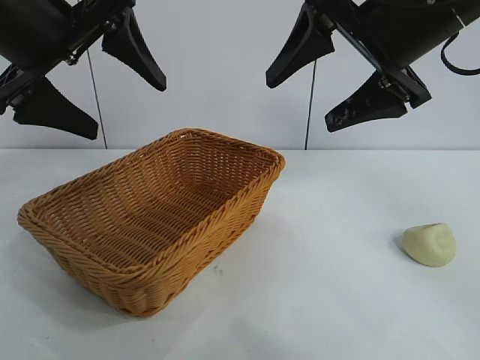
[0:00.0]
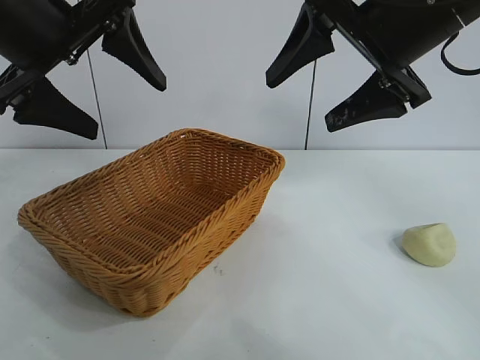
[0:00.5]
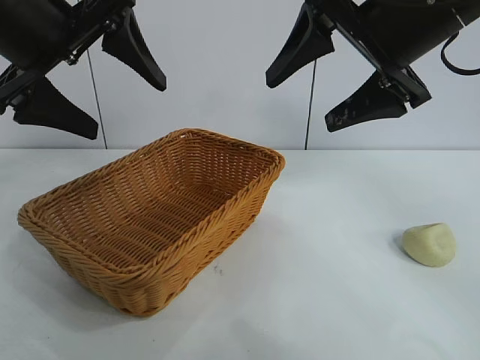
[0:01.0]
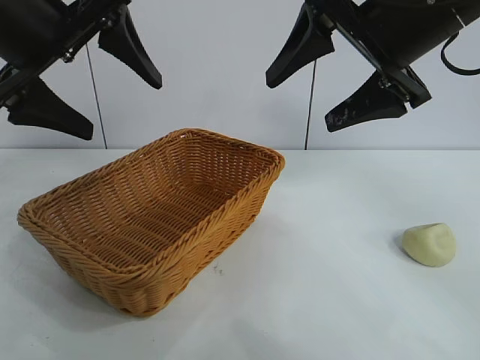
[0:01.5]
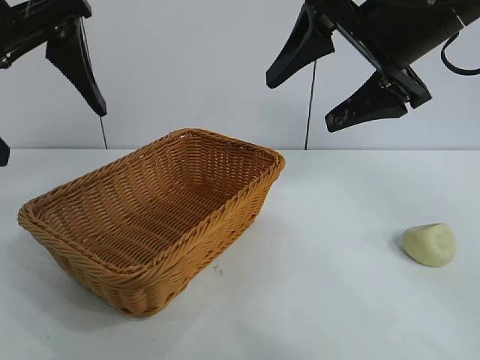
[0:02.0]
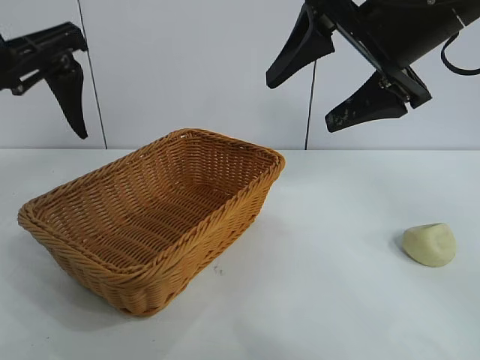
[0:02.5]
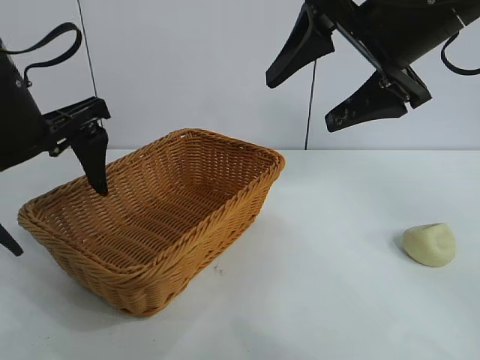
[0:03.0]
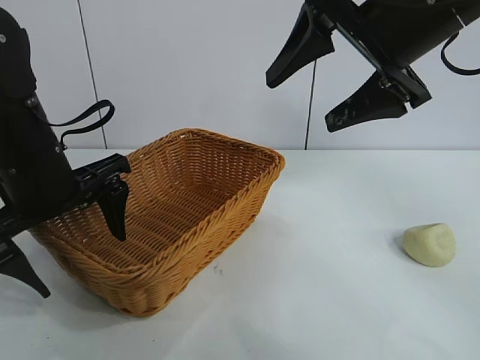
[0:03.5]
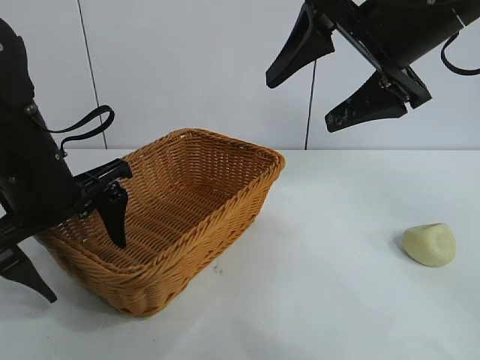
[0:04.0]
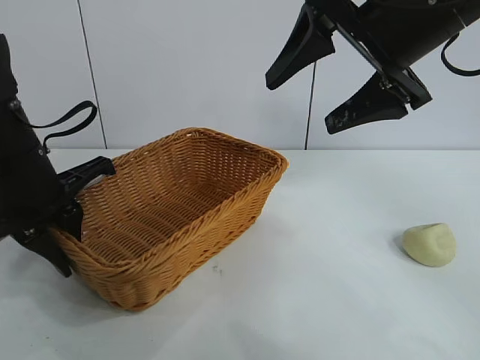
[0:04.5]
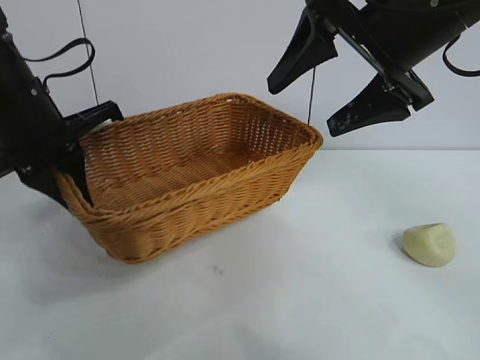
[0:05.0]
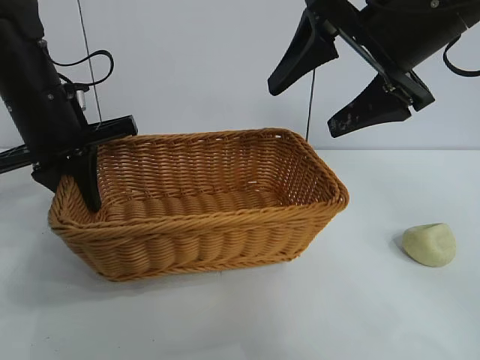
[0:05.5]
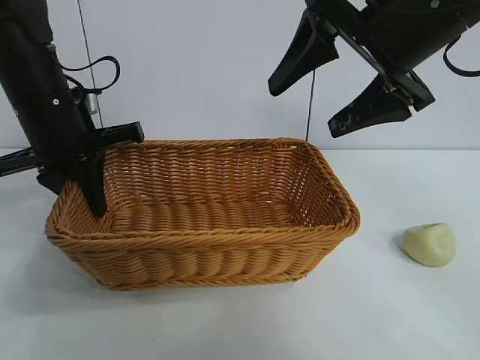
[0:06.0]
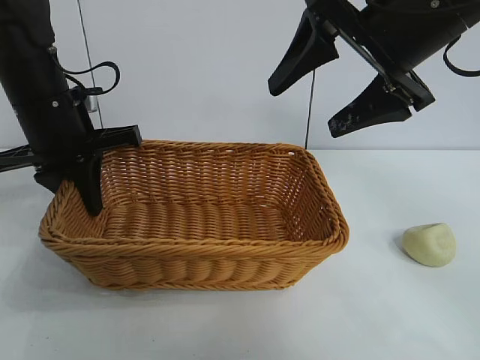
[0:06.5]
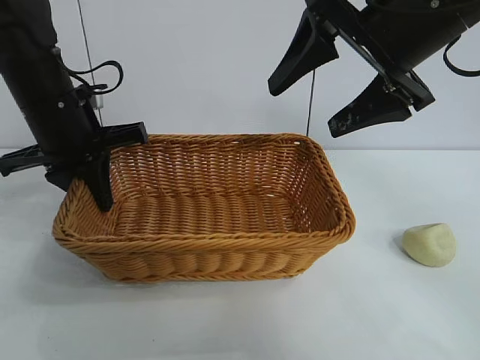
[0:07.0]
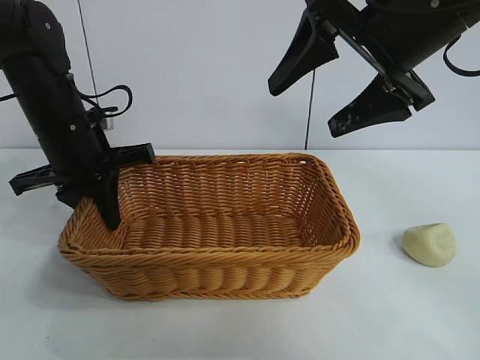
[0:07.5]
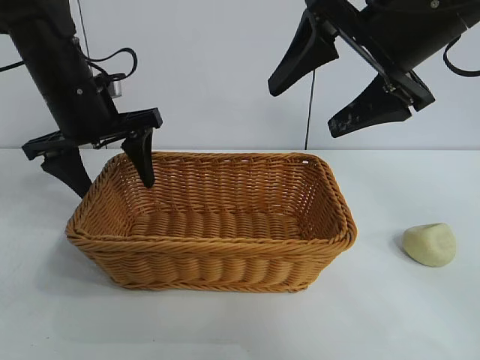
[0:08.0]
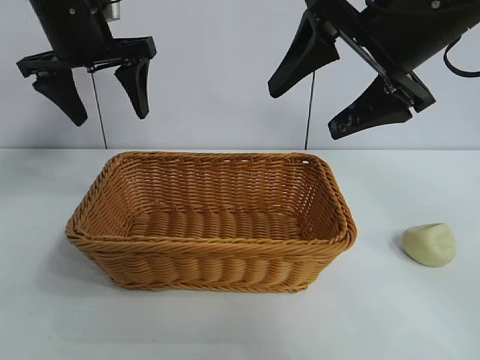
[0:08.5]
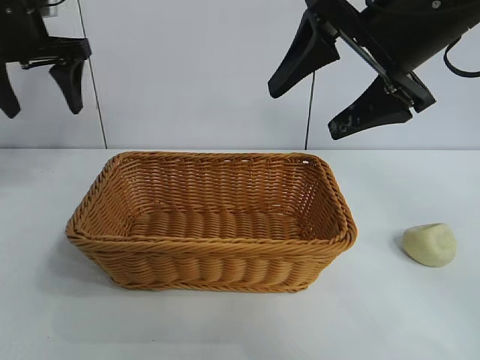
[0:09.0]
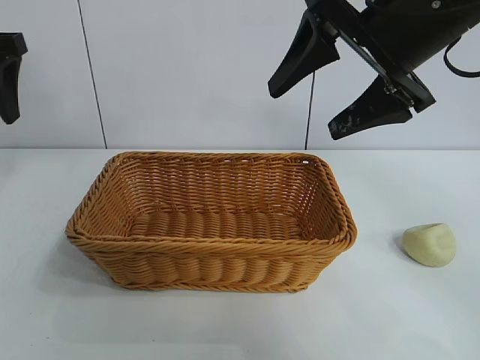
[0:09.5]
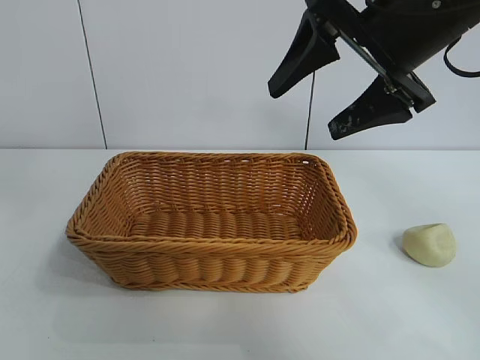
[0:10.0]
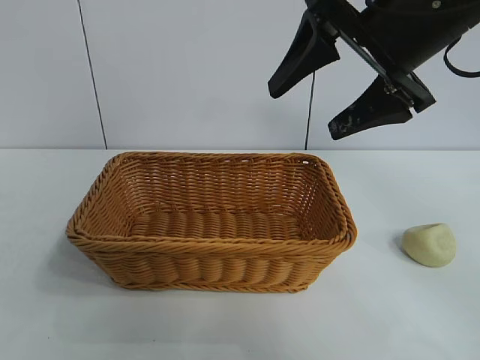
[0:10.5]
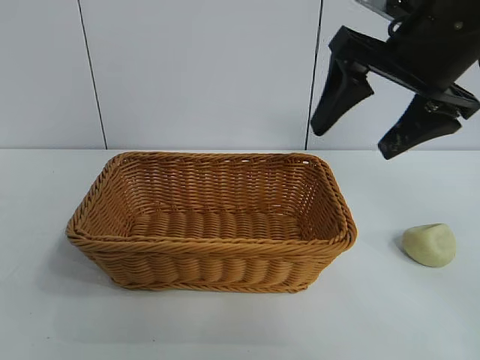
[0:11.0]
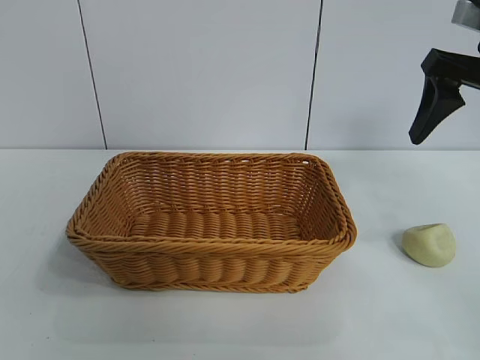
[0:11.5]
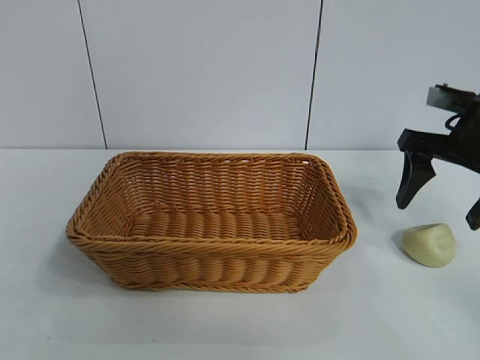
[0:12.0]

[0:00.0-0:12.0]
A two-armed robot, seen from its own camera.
Task of the whole recording: pick up the egg yolk pastry and put it into the basket.
Step, 0:01.5 to 0:04.0: Grasp the basket with left gripper.
Step, 0:04.5 to 0:07.5: Place the basket in the center of view with left gripper.

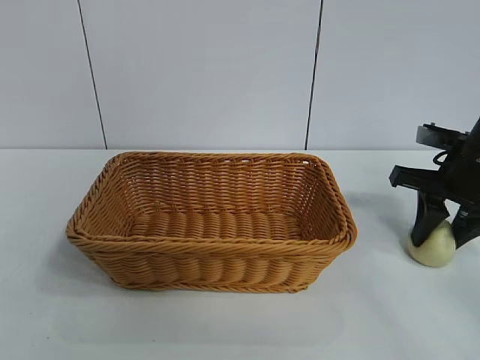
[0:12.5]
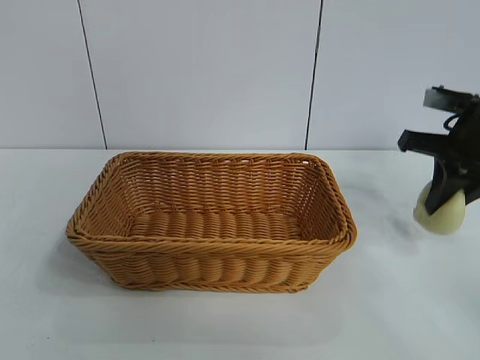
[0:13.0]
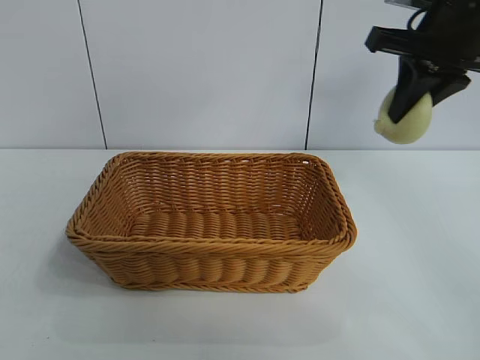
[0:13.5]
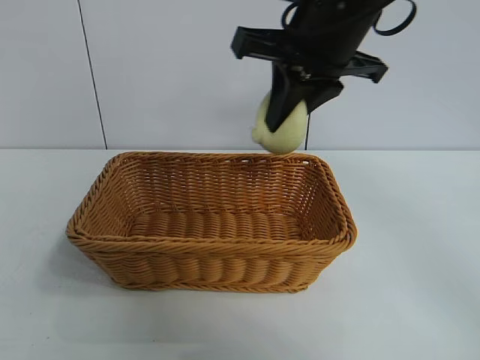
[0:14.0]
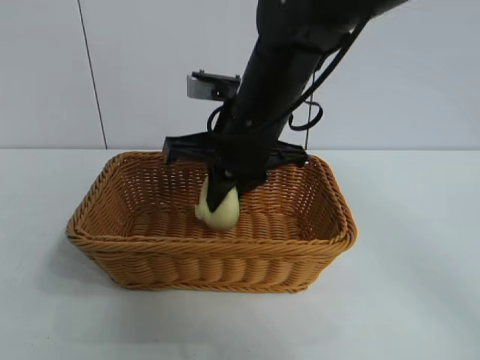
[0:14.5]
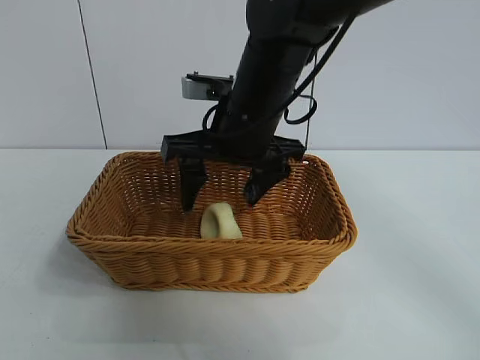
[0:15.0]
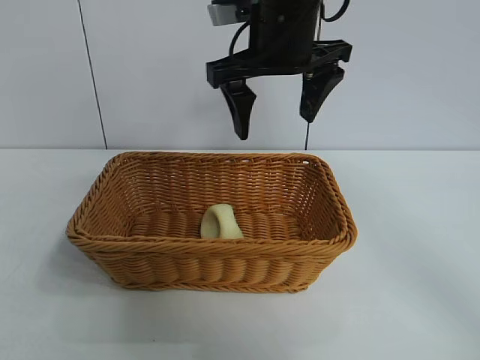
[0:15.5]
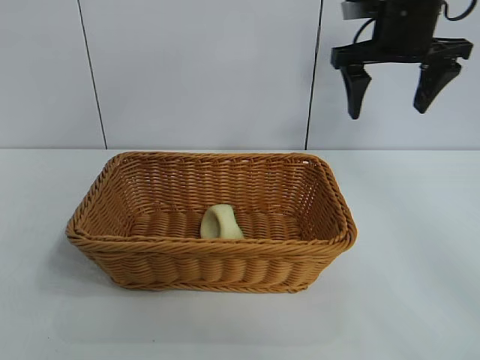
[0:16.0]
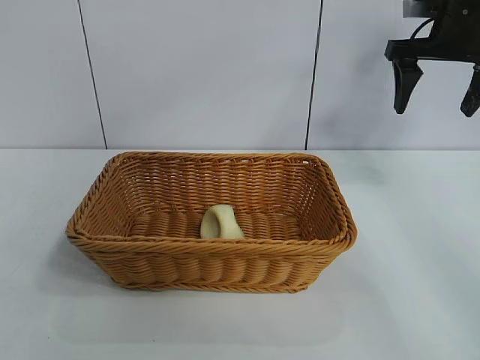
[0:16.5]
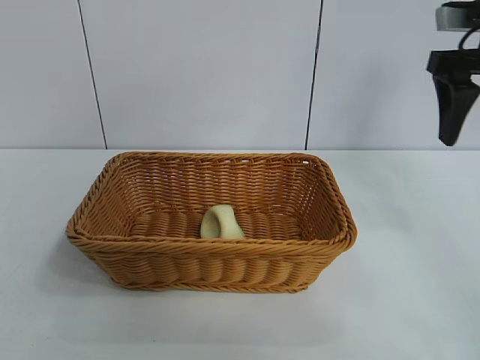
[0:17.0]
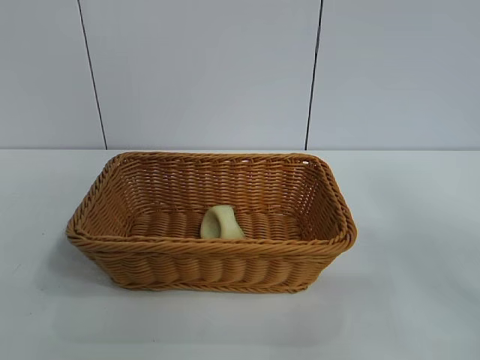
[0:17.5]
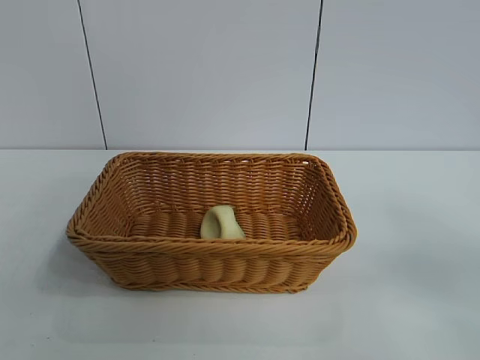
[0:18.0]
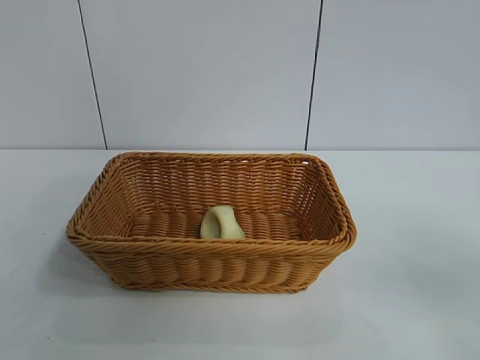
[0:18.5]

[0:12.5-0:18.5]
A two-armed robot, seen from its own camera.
Task of the whole recording: pick up the egg yolk pastry and put it into the basket.
Step, 0:13.0 to 0:14.5: Place the egg yolk pastry in the basket with right gripper.
